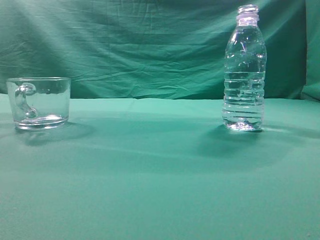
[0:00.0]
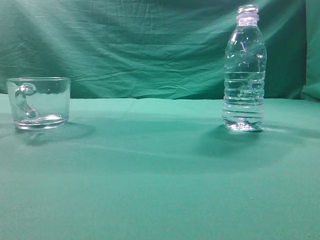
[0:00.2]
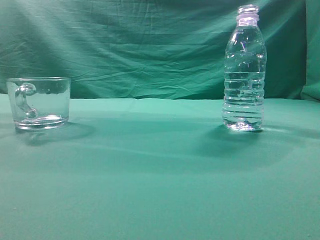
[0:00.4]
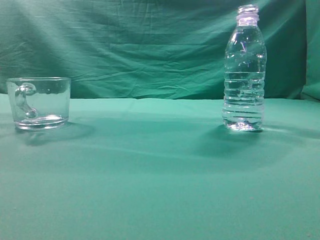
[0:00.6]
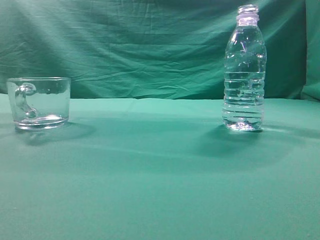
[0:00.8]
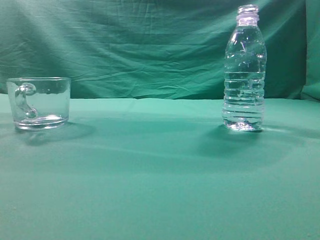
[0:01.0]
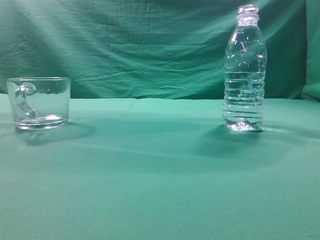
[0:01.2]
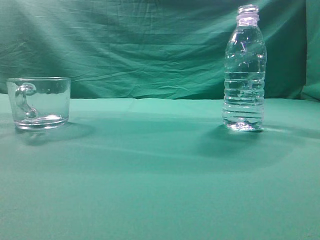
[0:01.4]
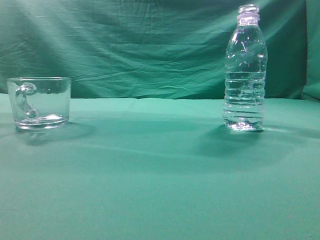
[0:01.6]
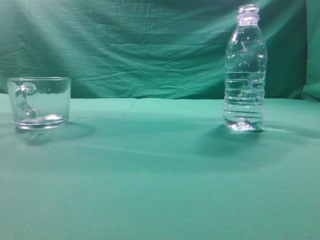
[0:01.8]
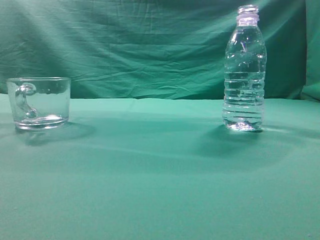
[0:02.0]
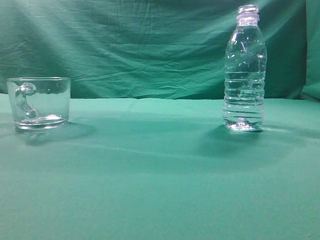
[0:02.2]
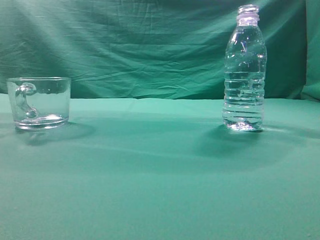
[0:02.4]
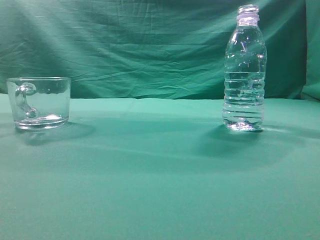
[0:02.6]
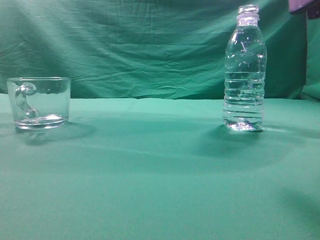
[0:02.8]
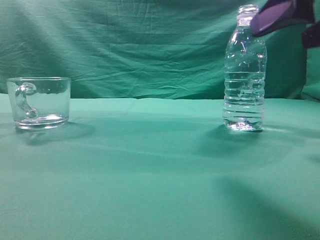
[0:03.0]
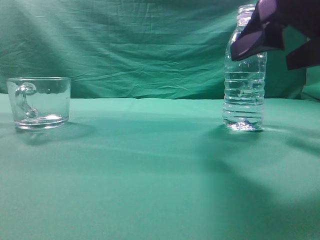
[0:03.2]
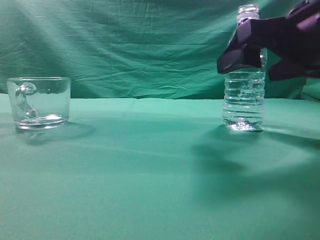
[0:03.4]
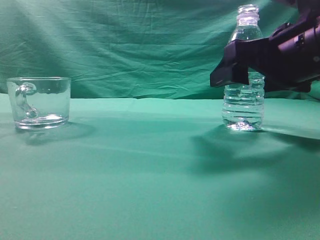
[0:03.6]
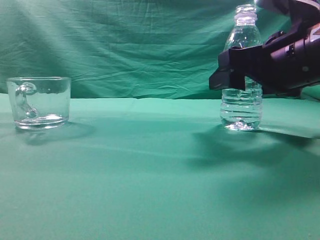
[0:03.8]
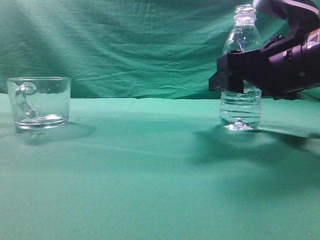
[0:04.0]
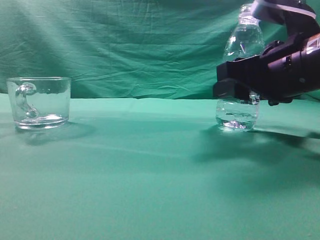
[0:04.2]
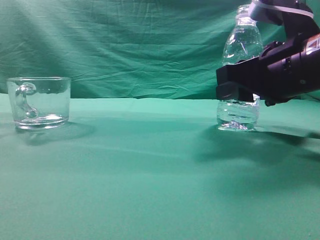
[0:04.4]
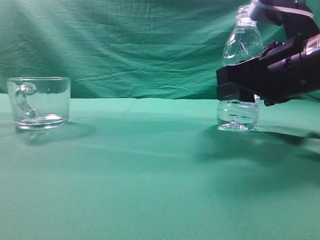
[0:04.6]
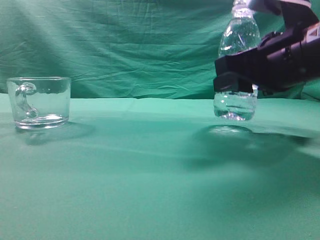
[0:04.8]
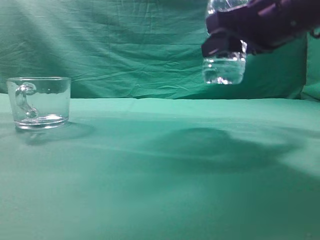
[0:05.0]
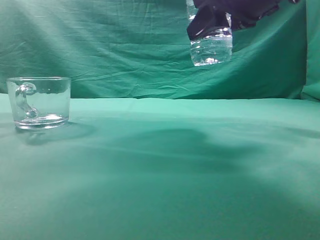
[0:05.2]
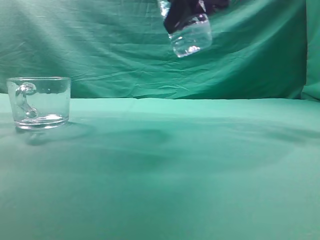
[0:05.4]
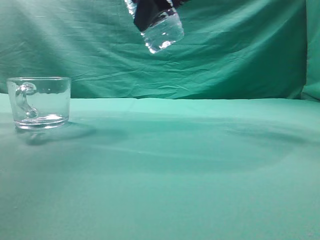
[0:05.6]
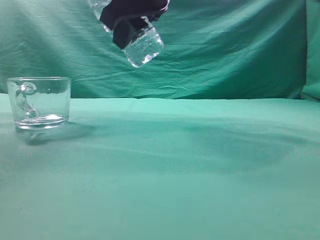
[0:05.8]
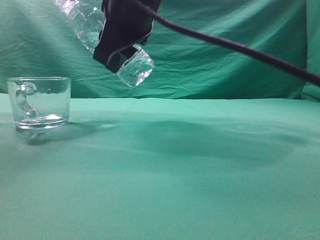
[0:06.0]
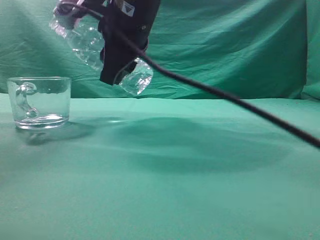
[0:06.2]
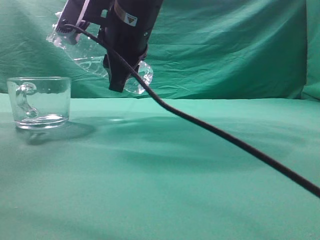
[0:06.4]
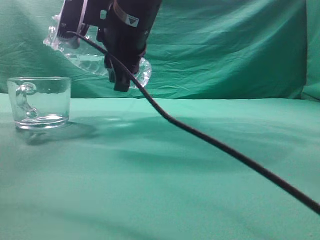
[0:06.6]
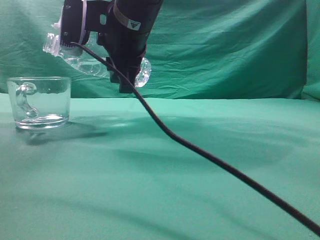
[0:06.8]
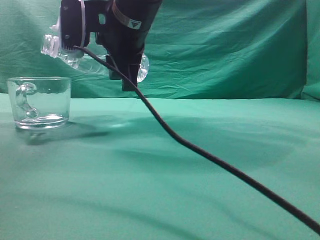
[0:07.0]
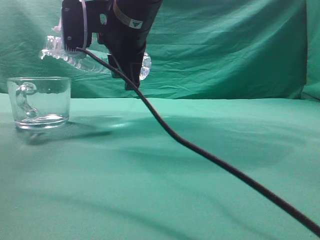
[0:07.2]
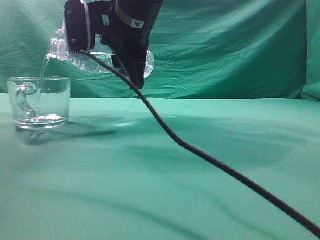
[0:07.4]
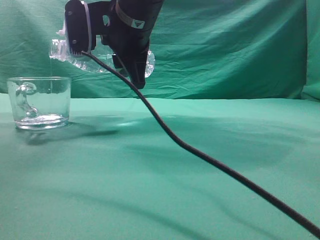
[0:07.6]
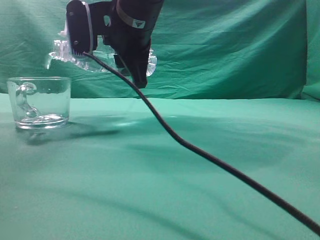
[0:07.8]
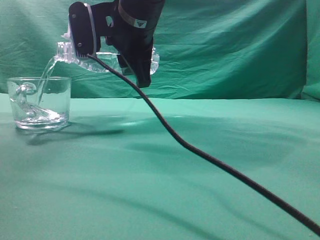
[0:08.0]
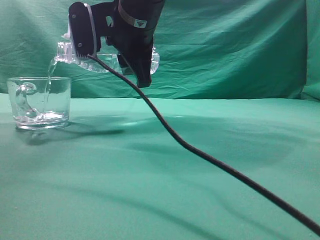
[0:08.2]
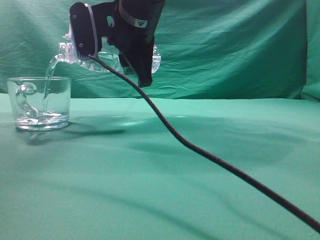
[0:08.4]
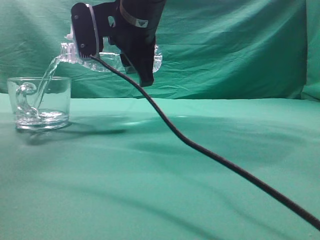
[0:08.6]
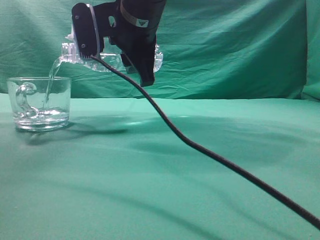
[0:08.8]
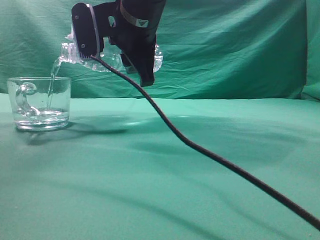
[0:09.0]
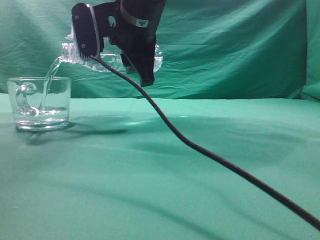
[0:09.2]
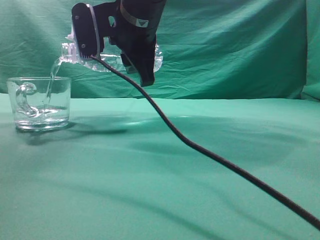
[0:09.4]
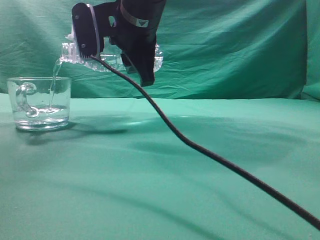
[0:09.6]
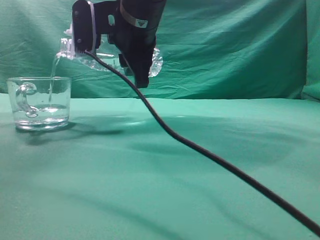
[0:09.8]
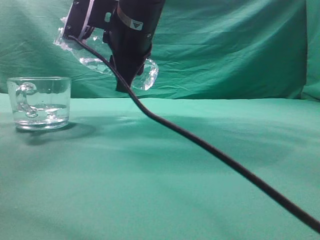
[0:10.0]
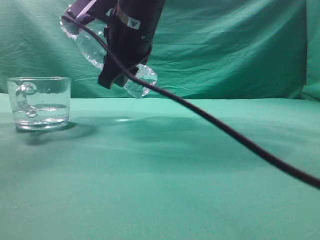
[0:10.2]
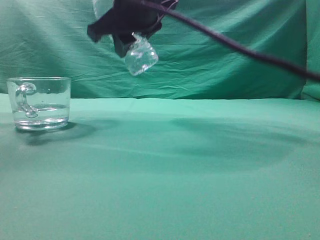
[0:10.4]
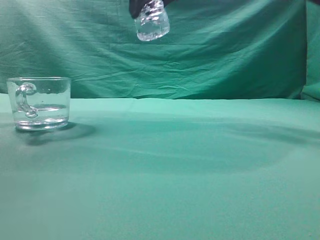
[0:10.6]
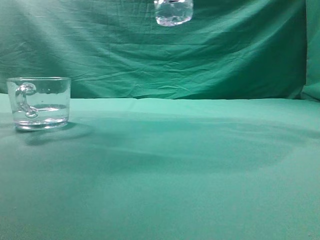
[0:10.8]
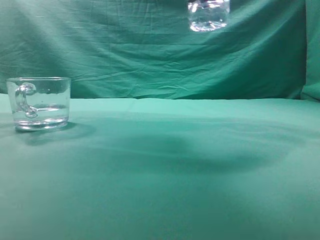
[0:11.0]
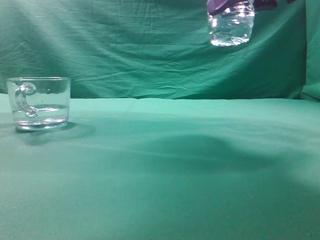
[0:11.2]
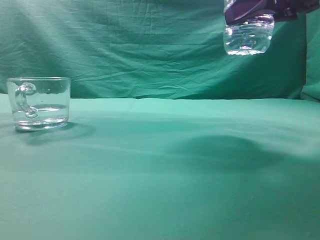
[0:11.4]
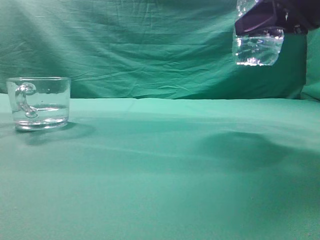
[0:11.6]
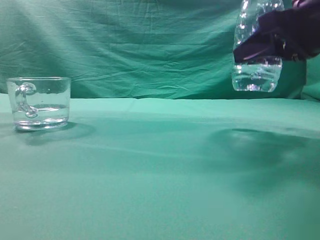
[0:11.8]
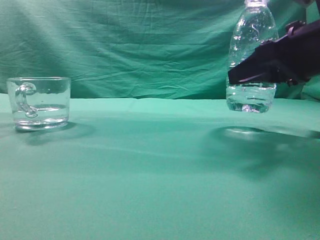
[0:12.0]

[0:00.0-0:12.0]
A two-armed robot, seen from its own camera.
Task of the whole recording: pick up the water bottle and pour the water in it into the glass.
Step, 0:00.0 to 0:04.8: Grasp the mineral water bottle.
Step, 0:05.0 to 0:10.2: Pour water into the teacup.
0:01.6 to 0:03.0: The right gripper heads forward and to the left, covering about 15 cm, and opens.
0:03.0 to 0:04.4: The right gripper heads forward and downward, covering some 10 cm, and closes its fingers.
0:04.4 to 0:06.0: The right gripper is displaced to the left and upward by about 20 cm.
0:07.6 to 0:09.0: The grippers make only small movements.
0:10.4 to 0:12.0: The right gripper is displaced to the right and downward by about 25 cm.

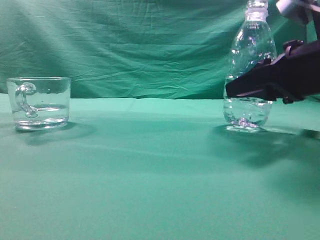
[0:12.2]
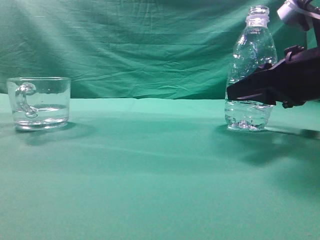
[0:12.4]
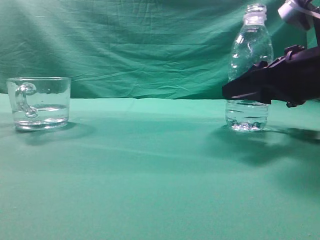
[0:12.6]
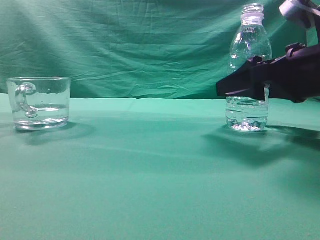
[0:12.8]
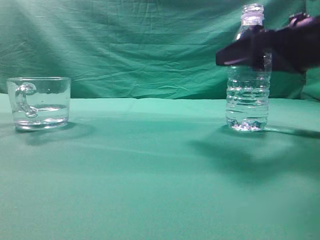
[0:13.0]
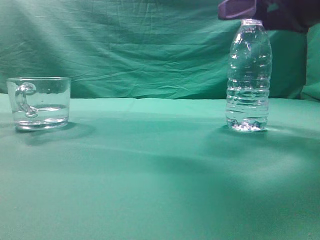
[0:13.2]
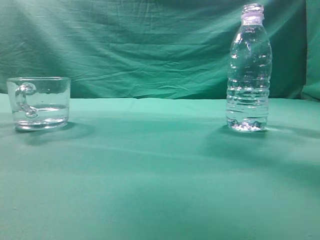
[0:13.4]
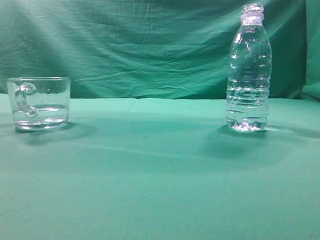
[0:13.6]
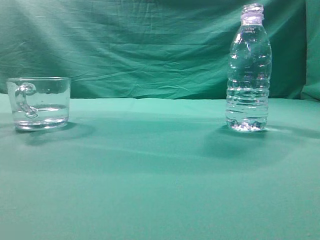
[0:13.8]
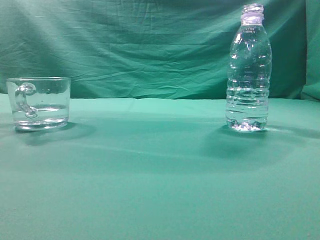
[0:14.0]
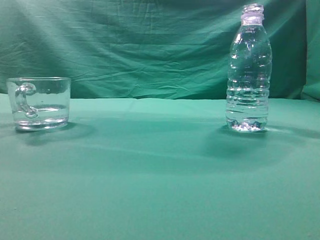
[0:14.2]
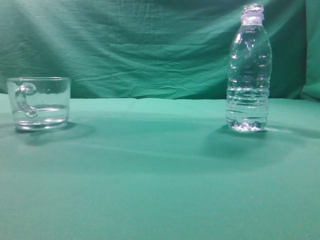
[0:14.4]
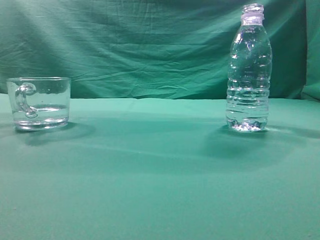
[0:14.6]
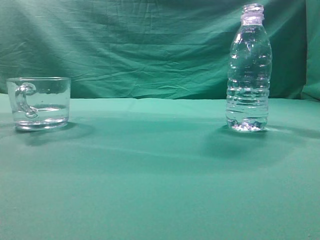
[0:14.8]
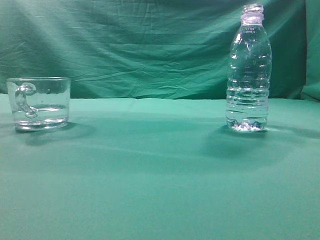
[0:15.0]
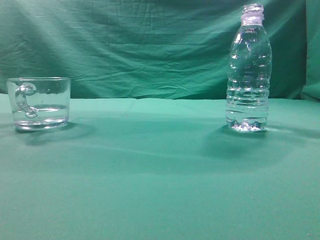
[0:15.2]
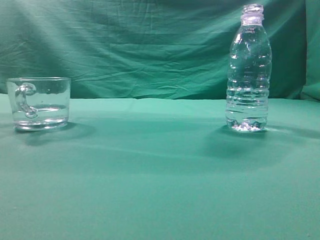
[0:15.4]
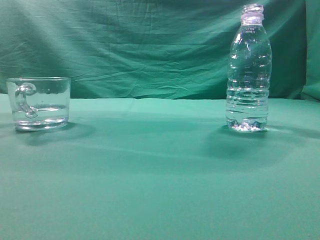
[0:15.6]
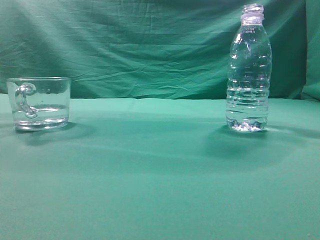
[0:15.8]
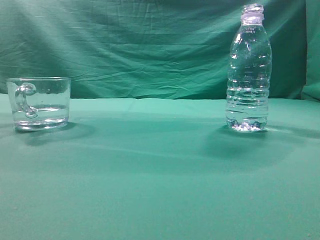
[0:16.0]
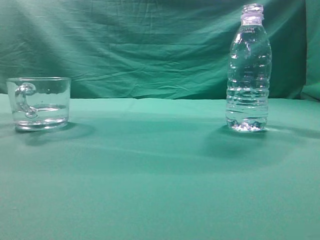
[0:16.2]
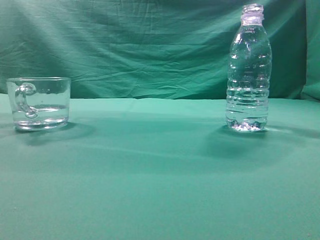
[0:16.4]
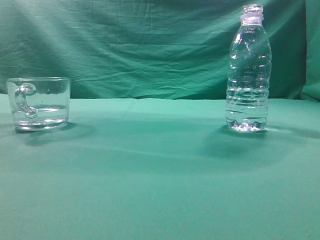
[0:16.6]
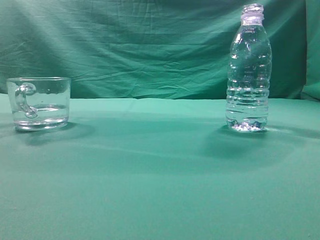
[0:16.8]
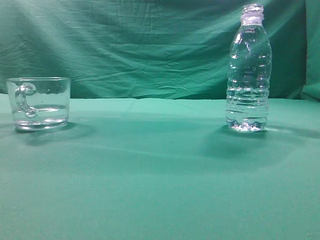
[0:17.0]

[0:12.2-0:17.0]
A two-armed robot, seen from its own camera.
Task of the whole recording: pick up the water bottle and pour the water in it into the glass.
0:12.2 to 0:13.8: The right gripper travels upward and backward by some 25 cm, and closes.
